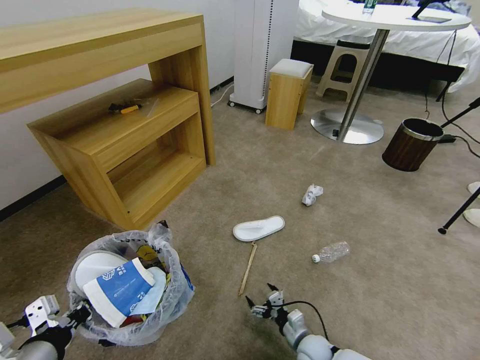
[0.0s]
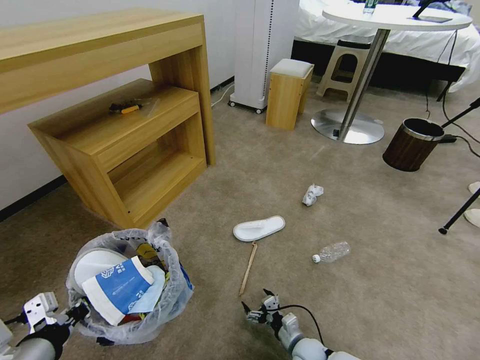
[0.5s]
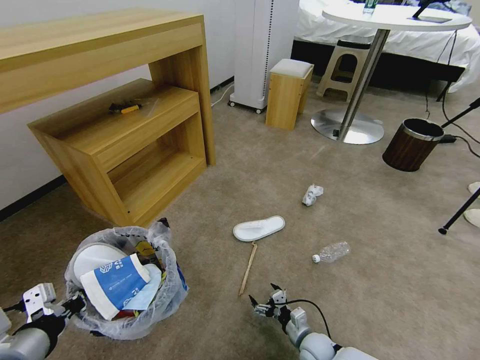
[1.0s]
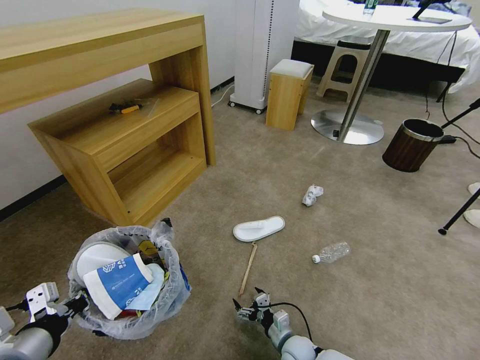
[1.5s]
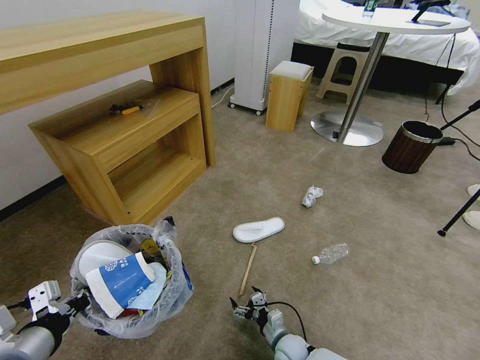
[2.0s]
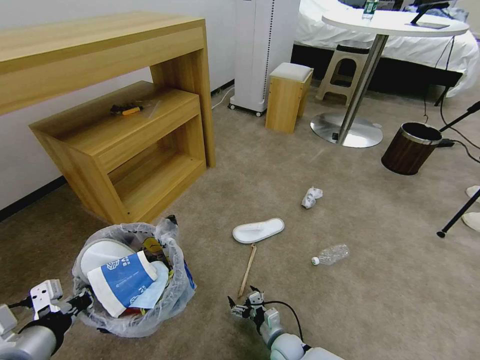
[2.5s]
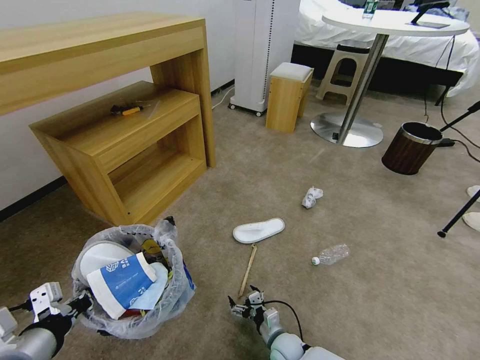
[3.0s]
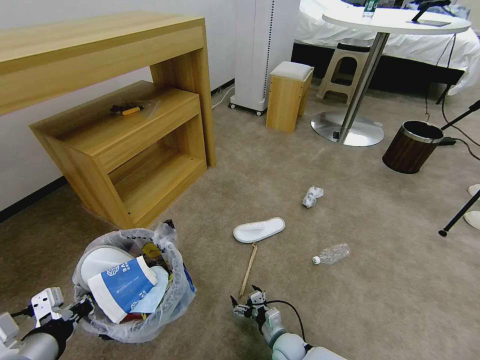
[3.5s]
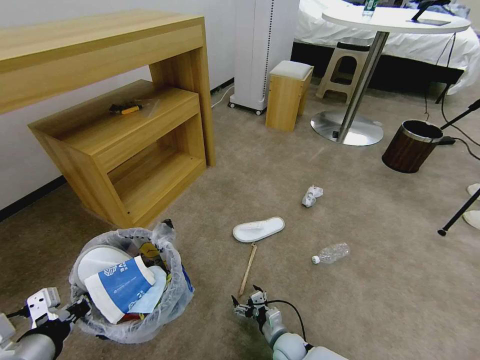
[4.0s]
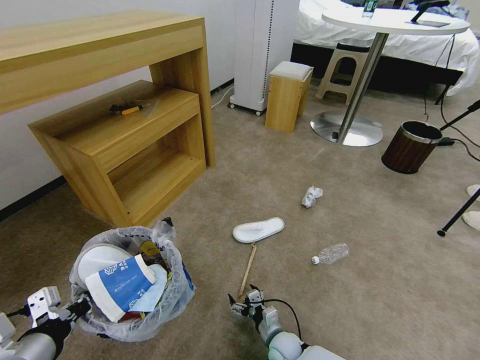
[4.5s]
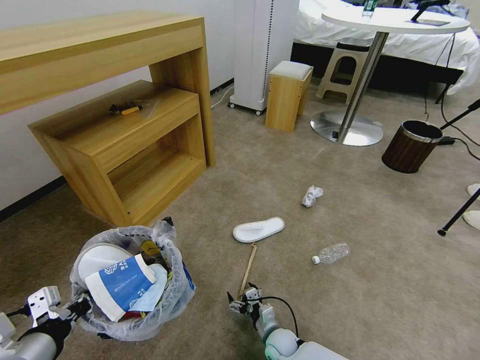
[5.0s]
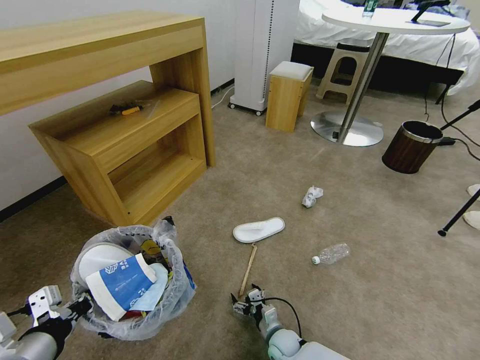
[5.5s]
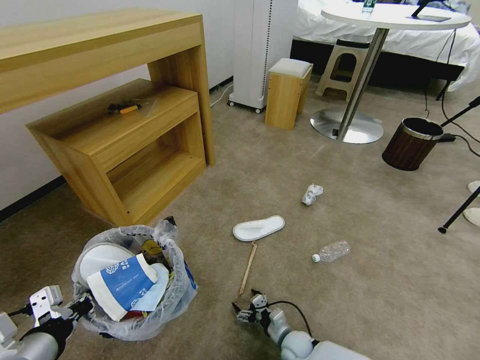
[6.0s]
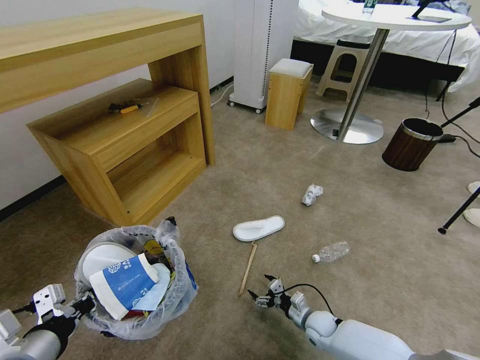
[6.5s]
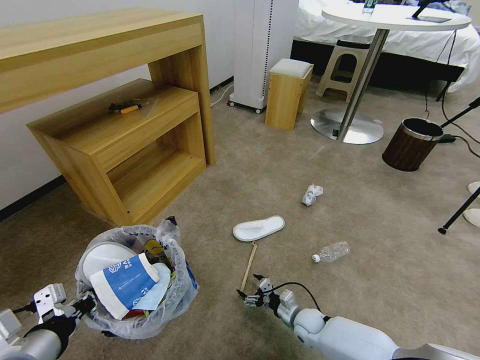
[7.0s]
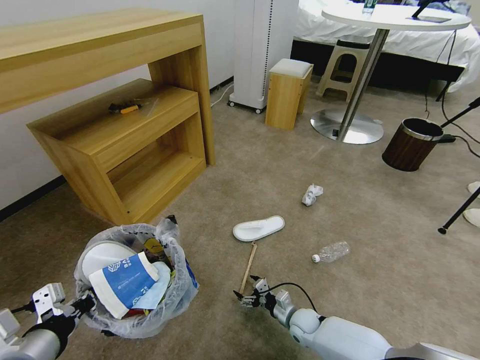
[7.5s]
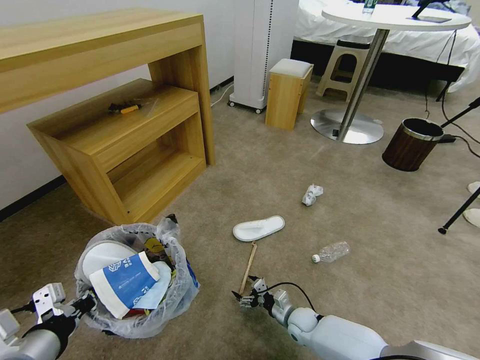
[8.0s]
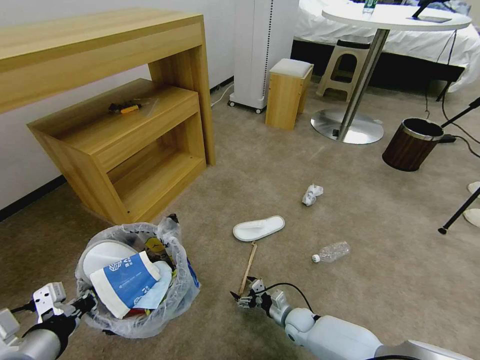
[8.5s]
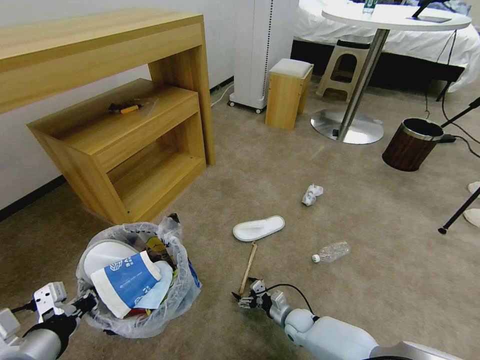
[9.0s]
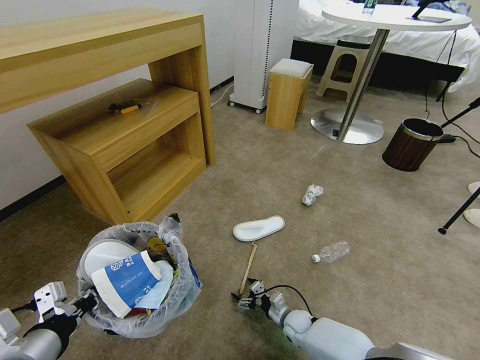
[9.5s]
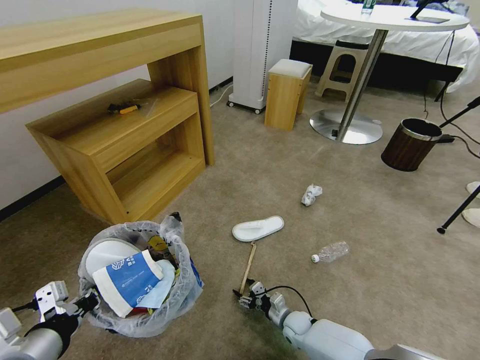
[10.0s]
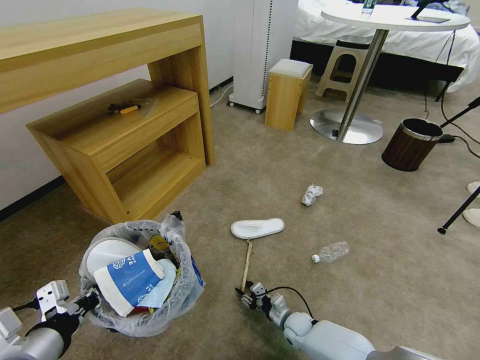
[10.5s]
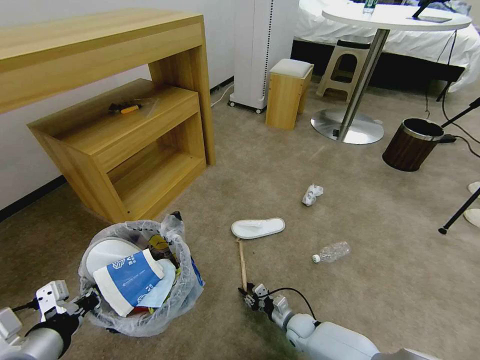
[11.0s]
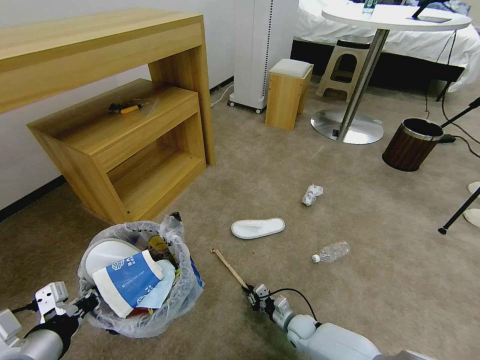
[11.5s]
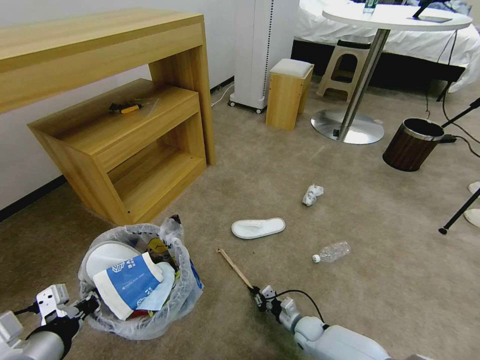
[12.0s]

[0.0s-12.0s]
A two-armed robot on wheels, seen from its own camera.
Task of the whole recording: Pick up the trash bin and place the garbage on the floor into it.
0.0s to 2.0s: The right gripper heads to the left, covering roughly 5 cm.
2.0s to 4.0s: Both grippers stay put.
4.0s to 6.0s: The grippers stay close to where they were, moving slightly.
6.0s to 8.0s: The right gripper heads forward, covering approximately 5 cm.
8.0s to 10.0s: The grippers make only small movements.
10.0s to 12.0s: The right gripper closes its fingers.

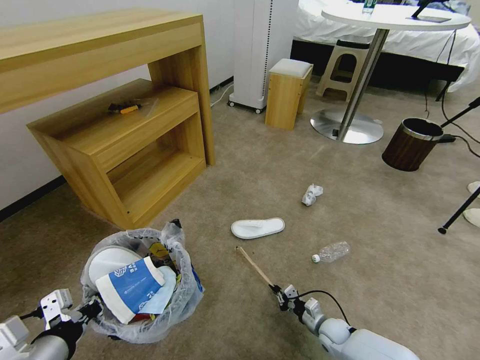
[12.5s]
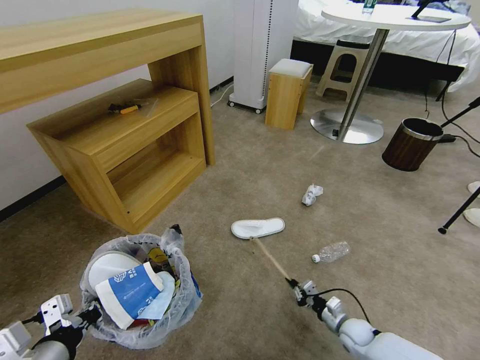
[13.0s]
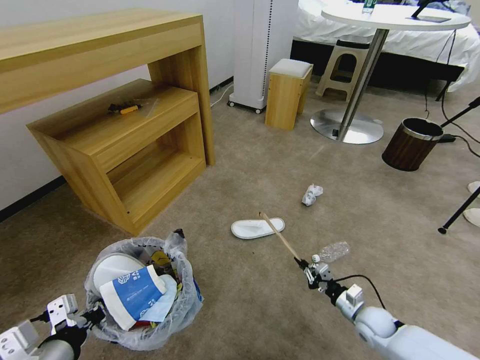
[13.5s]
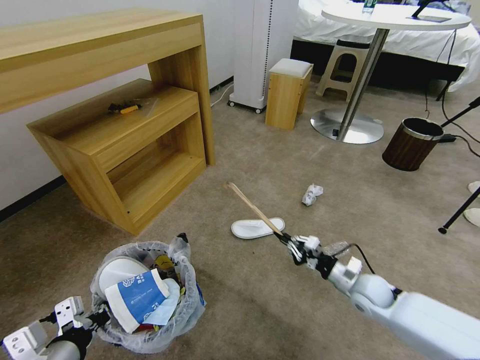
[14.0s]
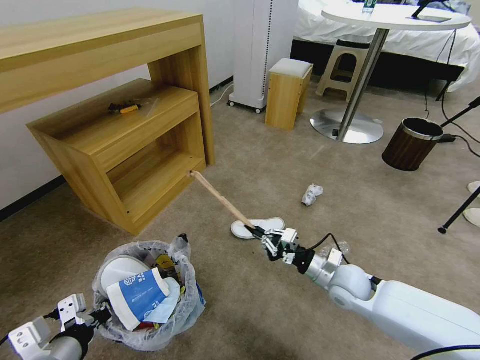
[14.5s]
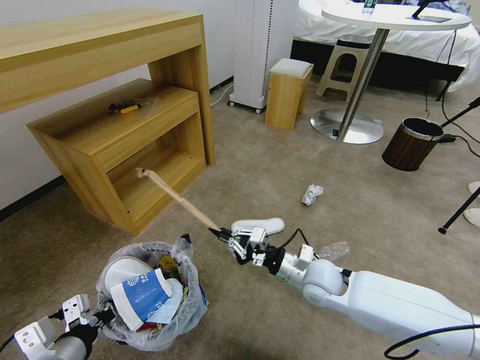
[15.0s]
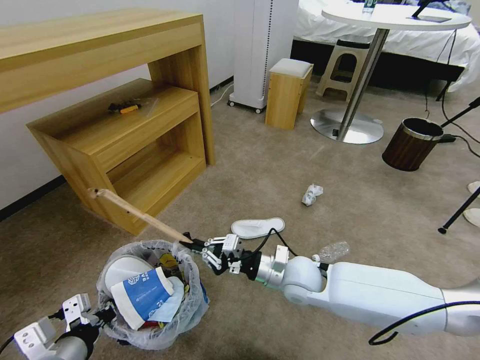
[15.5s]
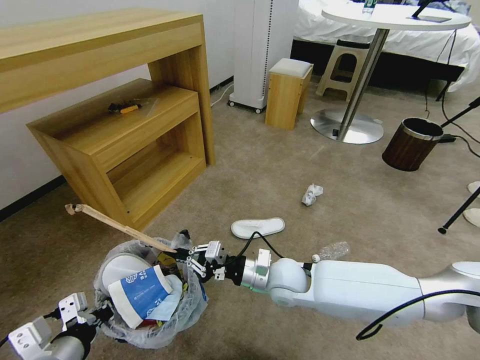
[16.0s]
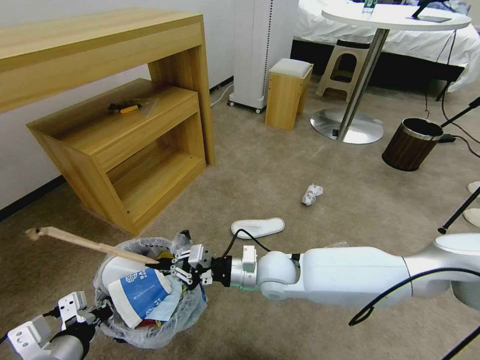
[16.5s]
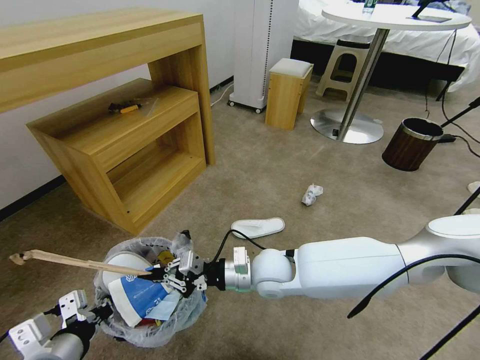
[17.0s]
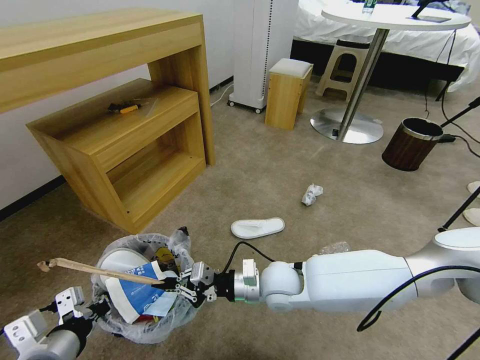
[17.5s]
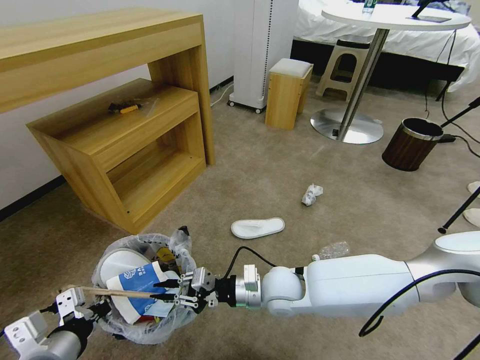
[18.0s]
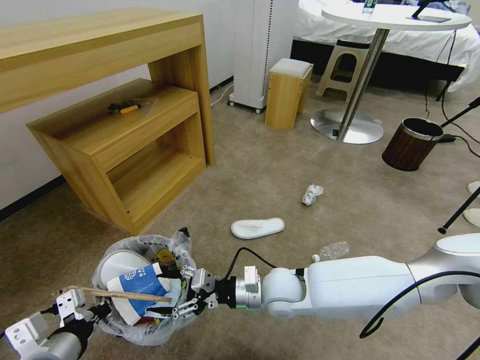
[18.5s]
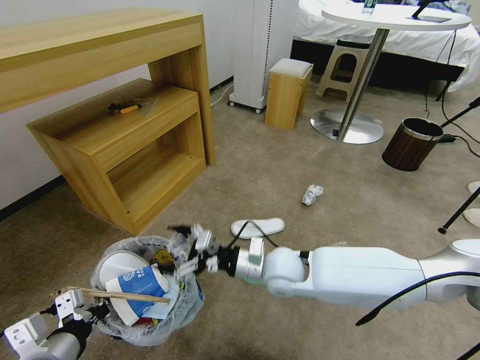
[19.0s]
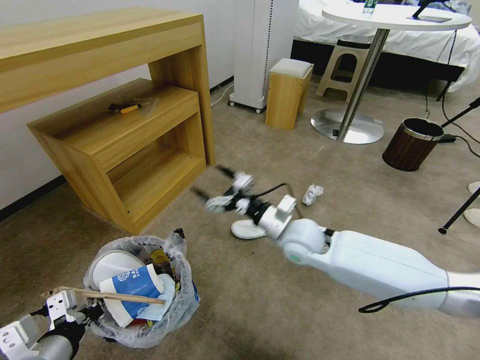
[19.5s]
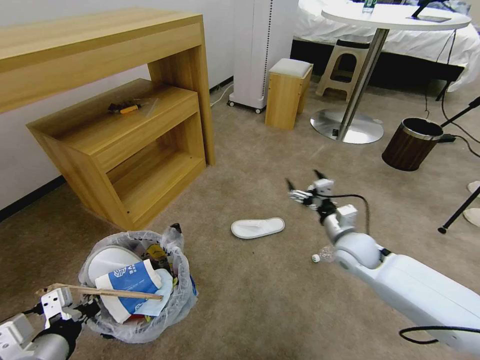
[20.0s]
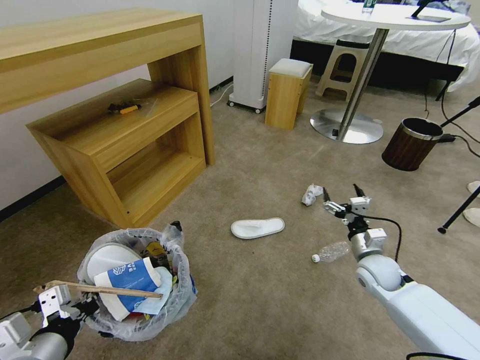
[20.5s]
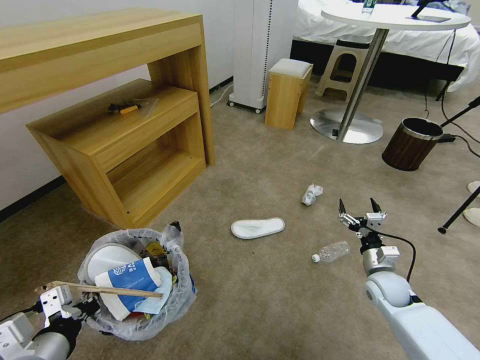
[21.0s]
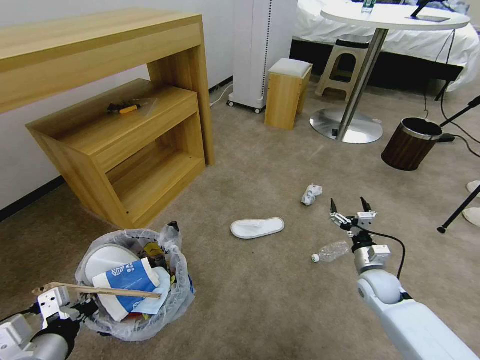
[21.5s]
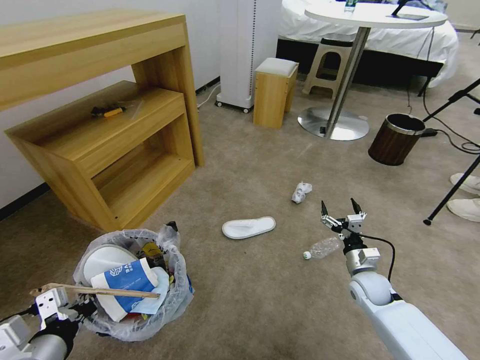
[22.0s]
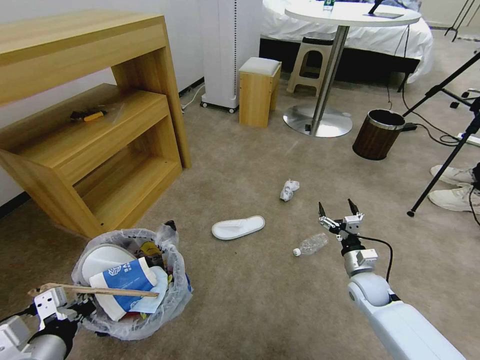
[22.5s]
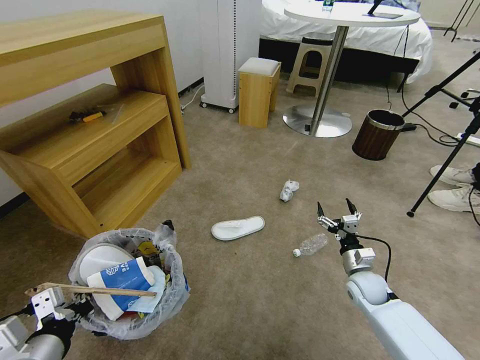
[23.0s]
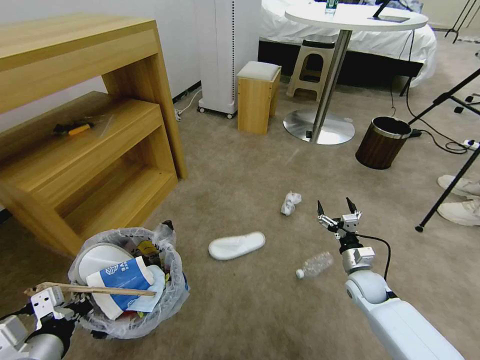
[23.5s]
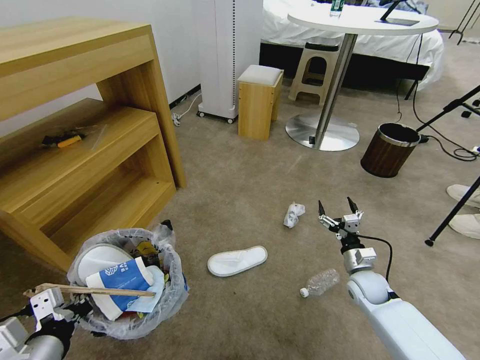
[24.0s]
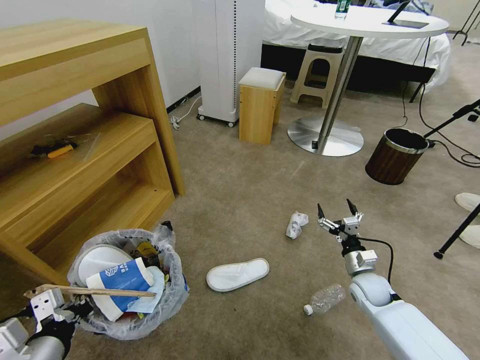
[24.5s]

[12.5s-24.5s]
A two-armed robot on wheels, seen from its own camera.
Task of the whole recording: Pick up the trash bin and place the garbage on the floor into it.
12.5s to 14.5s: The right gripper goes some 25 cm upward.
14.5s to 16.5s: The right gripper shifts about 20 cm to the left.
16.5s to 18.5s: The right gripper opens its fingers.
18.5s to 20.5s: The right gripper moves to the right, about 25 cm.
20.5s to 22.5s: The right gripper shifts roughly 5 cm downward.

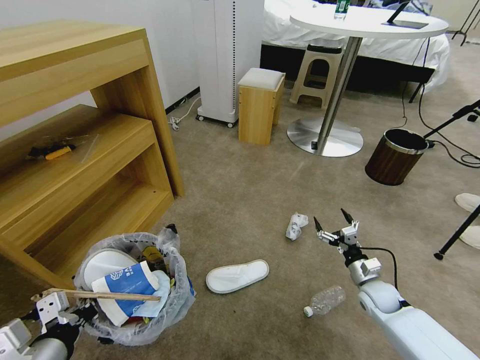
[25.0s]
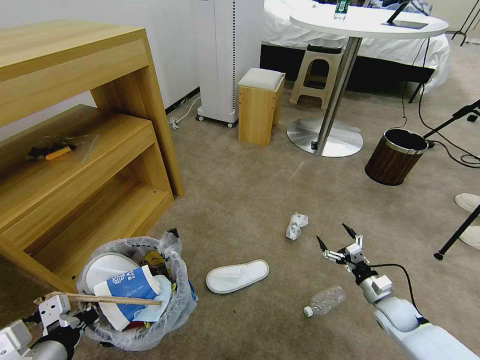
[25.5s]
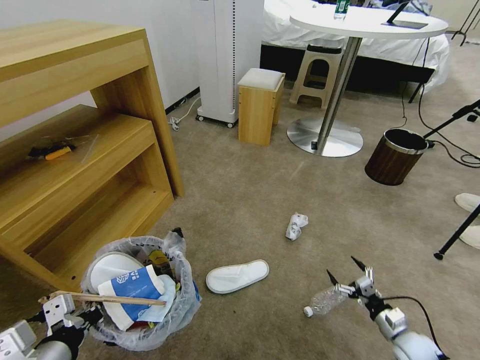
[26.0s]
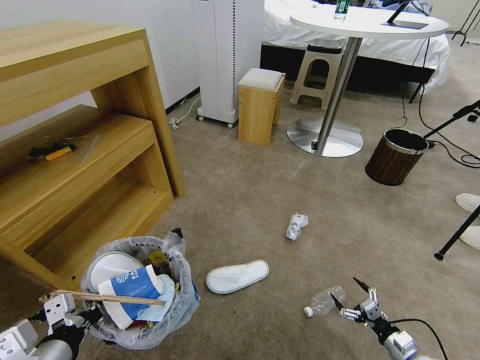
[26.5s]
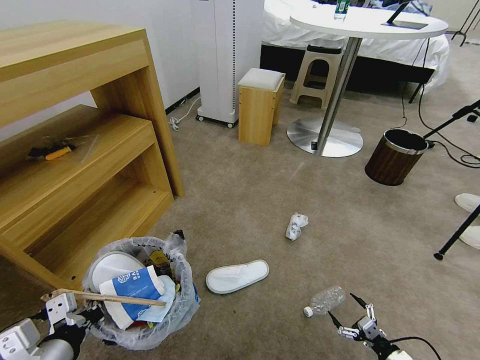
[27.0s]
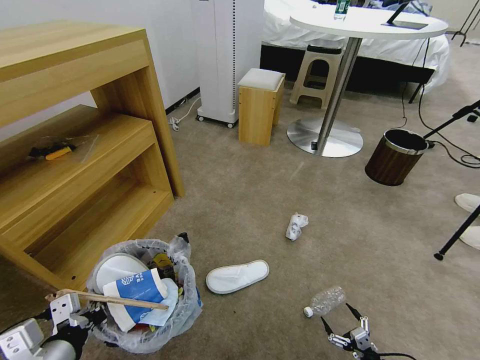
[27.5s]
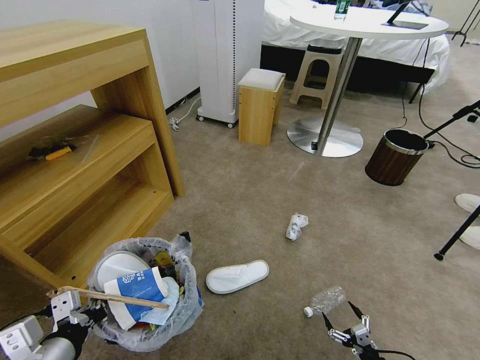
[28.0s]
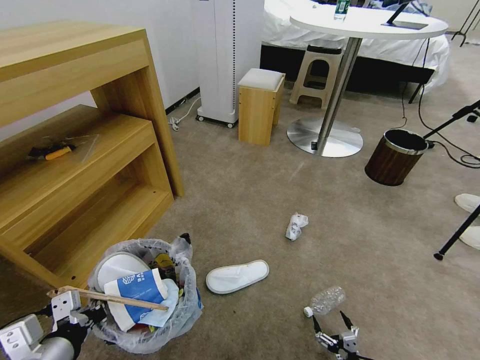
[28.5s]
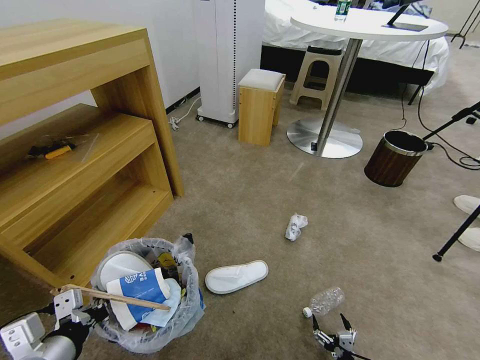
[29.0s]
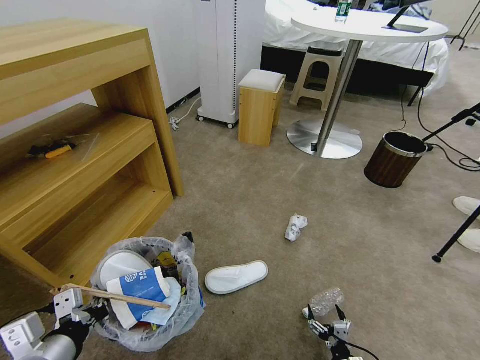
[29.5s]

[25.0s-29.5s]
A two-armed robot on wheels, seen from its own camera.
Task of the whole recording: Pick up the trash bin and place the garbage on the floor into it.
25.0s to 27.0s: The right gripper goes about 25 cm backward, downward and to the right.
27.0s to 29.5s: The right gripper moves to the left, about 15 cm.
